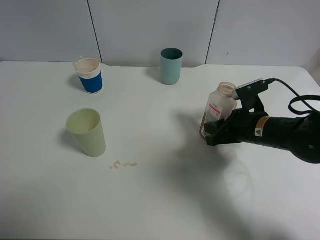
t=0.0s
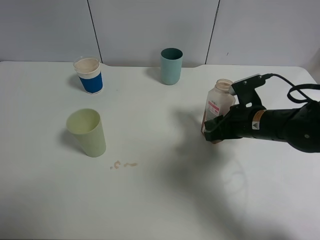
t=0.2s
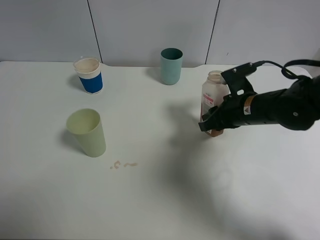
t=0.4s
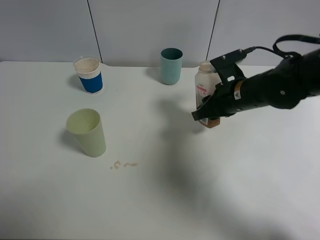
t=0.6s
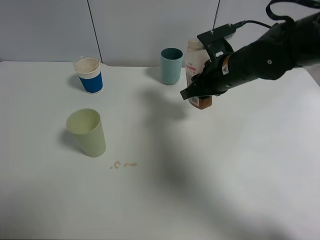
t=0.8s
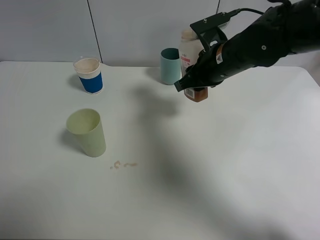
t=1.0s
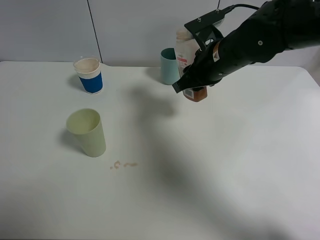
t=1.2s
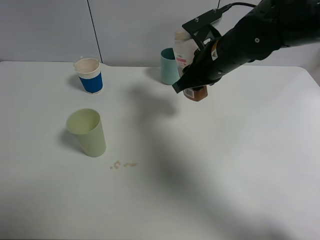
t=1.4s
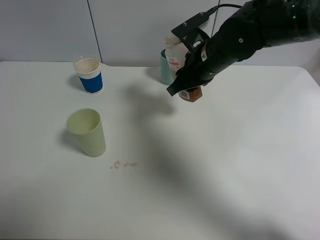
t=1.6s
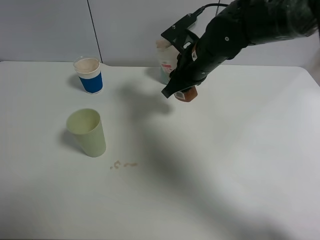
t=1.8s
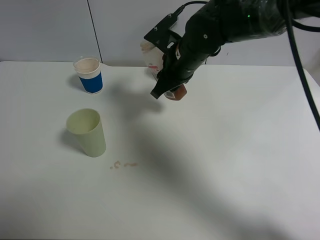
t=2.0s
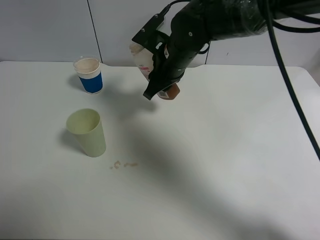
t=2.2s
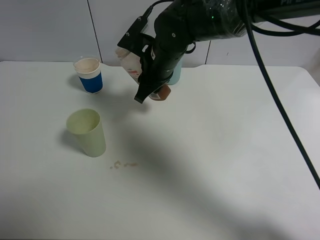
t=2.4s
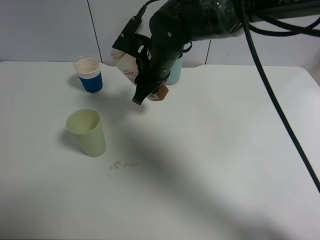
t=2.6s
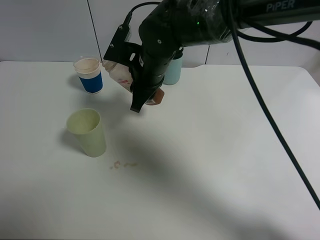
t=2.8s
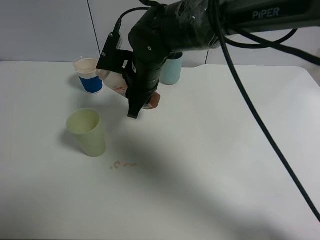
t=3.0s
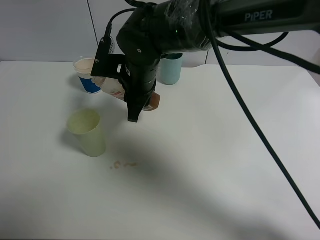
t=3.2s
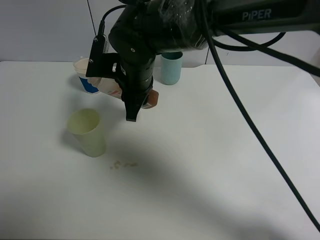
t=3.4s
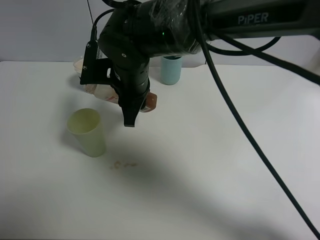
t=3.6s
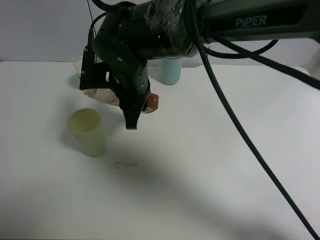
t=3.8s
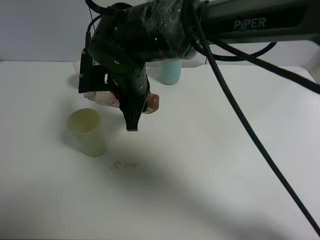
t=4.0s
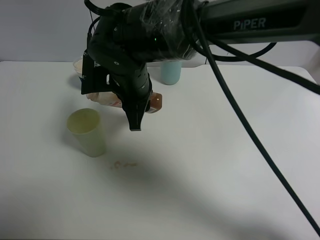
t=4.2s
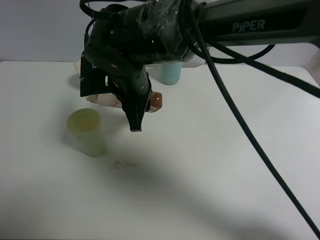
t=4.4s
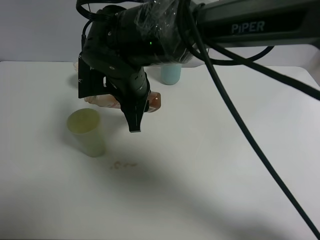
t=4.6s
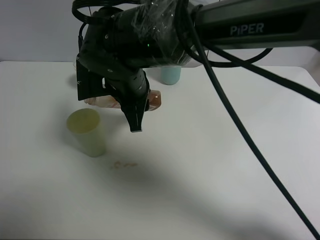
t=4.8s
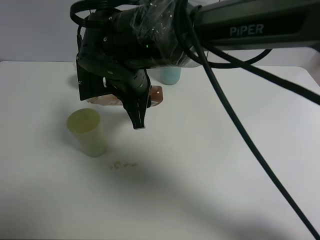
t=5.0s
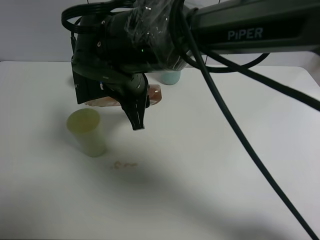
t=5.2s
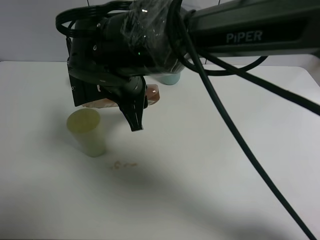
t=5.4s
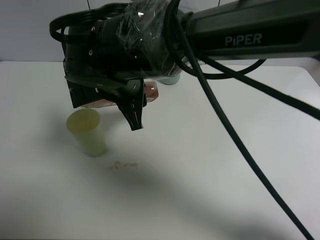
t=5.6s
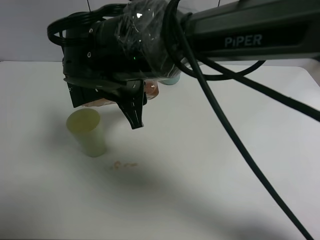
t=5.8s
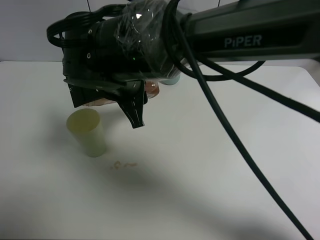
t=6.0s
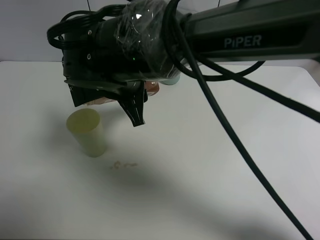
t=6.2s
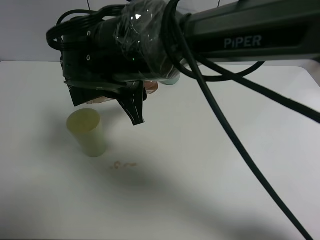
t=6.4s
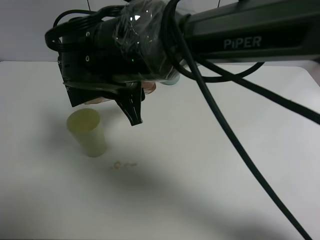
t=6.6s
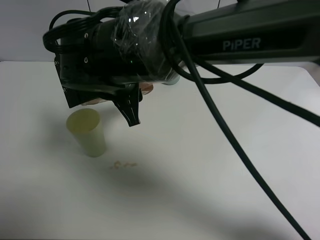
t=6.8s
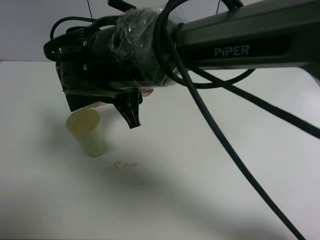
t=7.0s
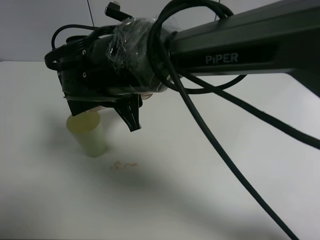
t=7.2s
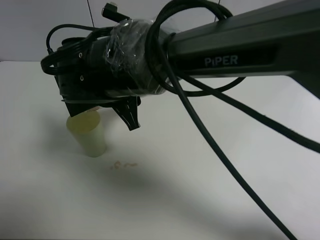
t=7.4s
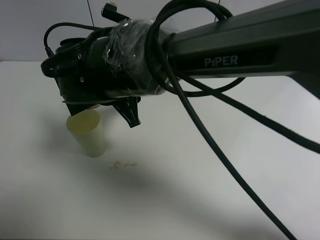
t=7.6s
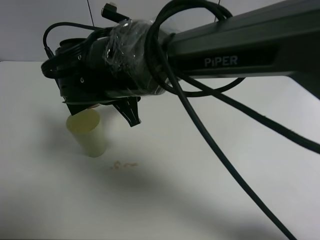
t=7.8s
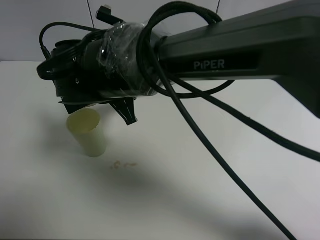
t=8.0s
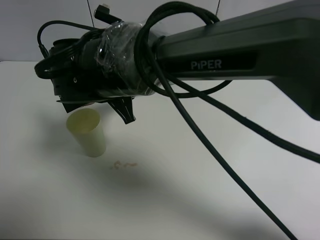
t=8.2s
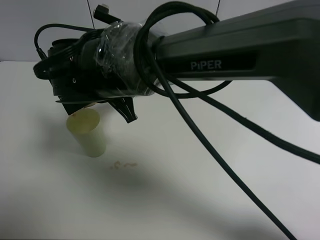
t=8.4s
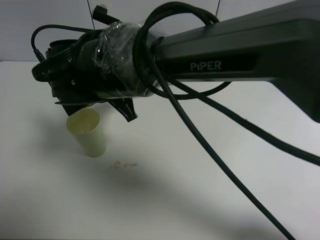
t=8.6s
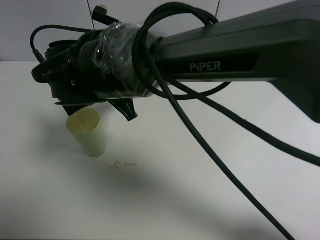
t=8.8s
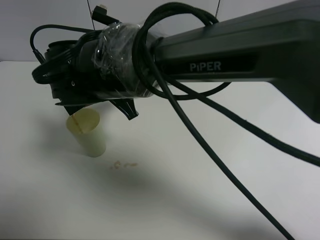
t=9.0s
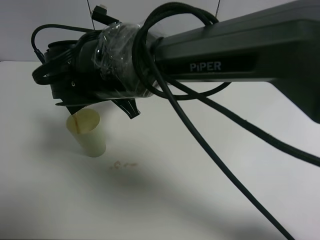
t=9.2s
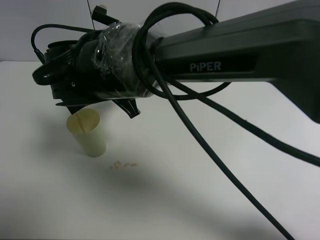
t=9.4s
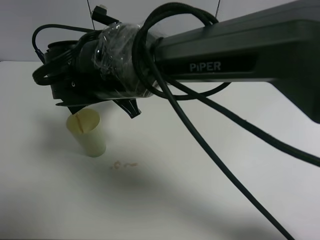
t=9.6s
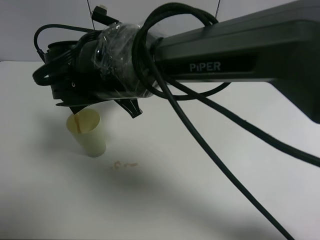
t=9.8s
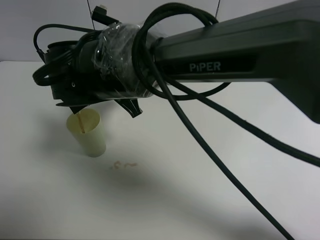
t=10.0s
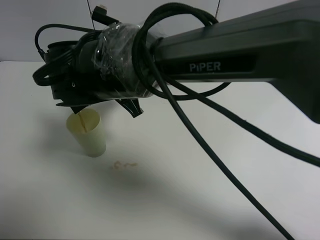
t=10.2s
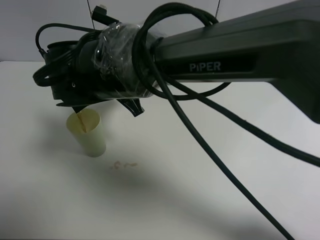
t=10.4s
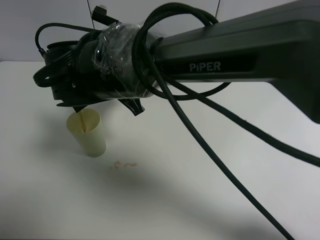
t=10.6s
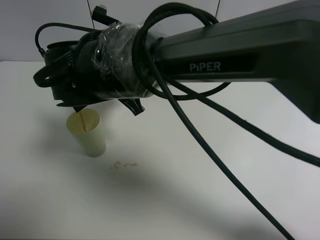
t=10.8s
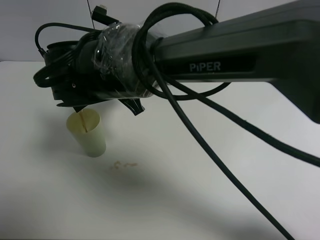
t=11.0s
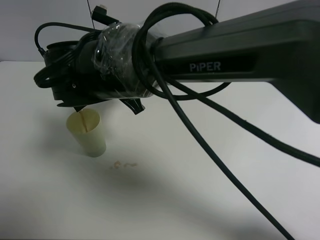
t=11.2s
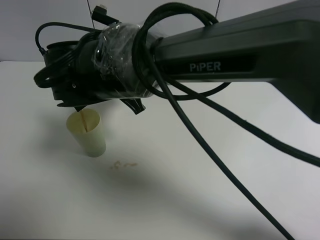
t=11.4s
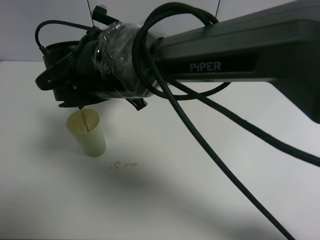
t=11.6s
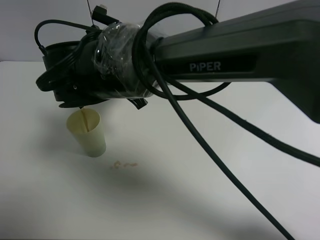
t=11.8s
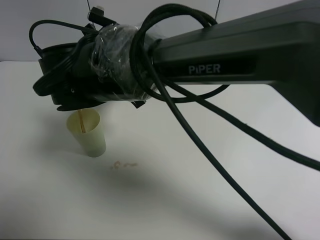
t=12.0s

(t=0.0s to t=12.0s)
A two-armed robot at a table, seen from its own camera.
Task of the whole recording: use a clamp to hold the bottle of the drink, pour the beverage into a random cup, then clamp the cup containing the drink and pour the drink into another random cup.
t=0.0s - t=1.6s: The right gripper heads to the left, upward and forward, covering about 15 cm.
t=1.6s - t=3.0s: The right gripper travels to the left by about 10 cm.
t=3.0s - t=4.4s: The right gripper ends up roughly 5 cm from where it was.
t=7.6s - t=9.0s: The grippers move only a little.
t=9.0s - t=10.4s: Both grippers stay about where they are.
t=10.4s - t=12.0s: There are only small adjustments of the grippers.

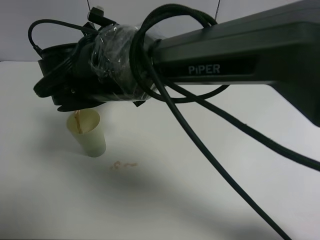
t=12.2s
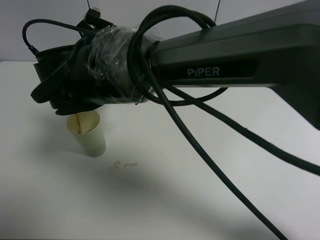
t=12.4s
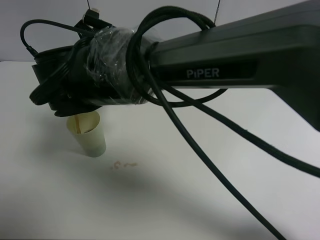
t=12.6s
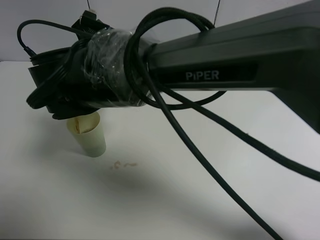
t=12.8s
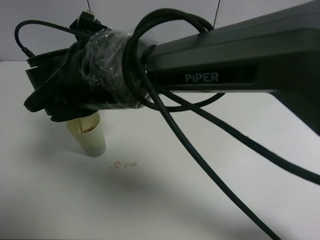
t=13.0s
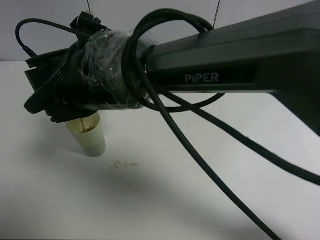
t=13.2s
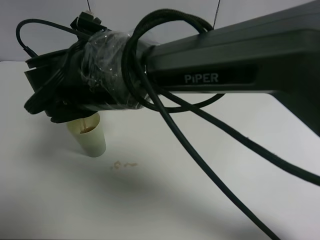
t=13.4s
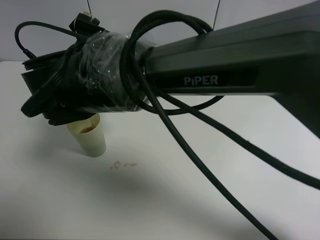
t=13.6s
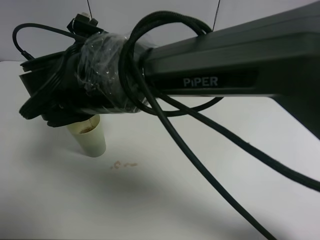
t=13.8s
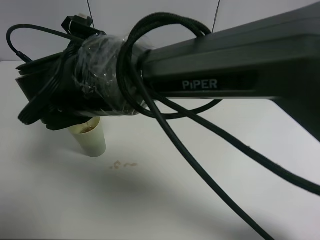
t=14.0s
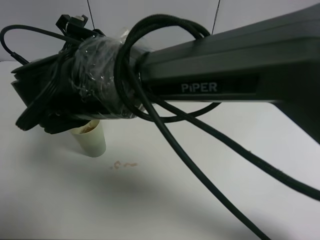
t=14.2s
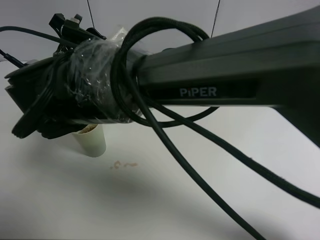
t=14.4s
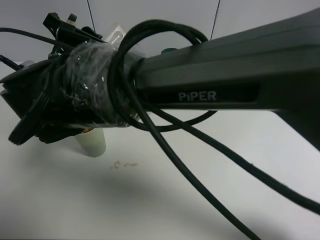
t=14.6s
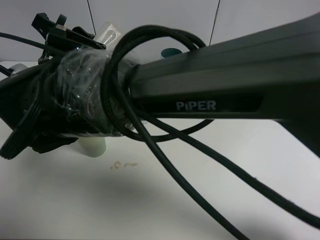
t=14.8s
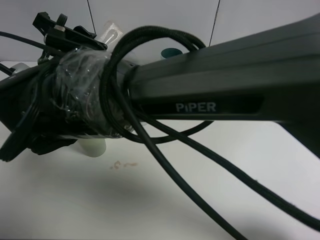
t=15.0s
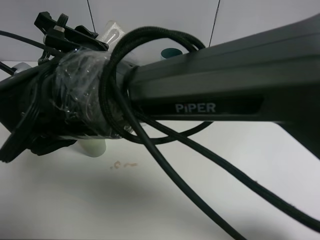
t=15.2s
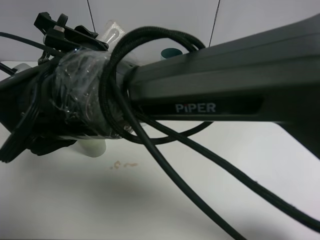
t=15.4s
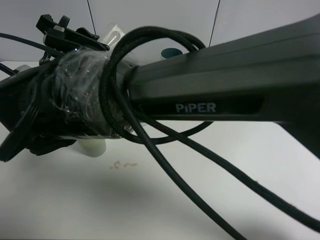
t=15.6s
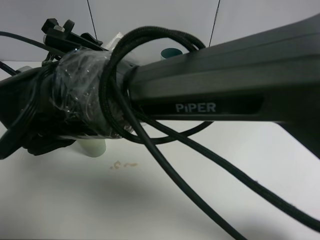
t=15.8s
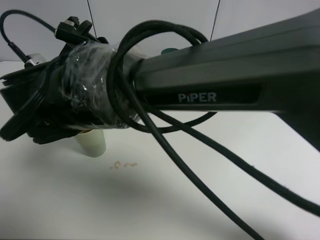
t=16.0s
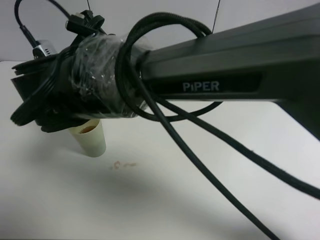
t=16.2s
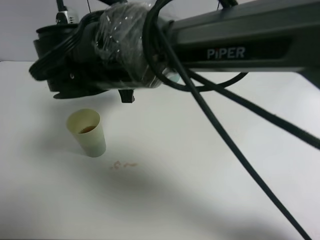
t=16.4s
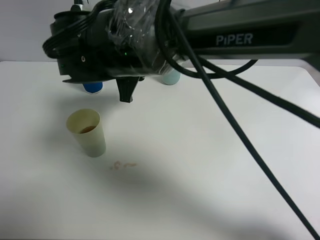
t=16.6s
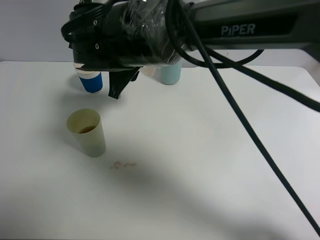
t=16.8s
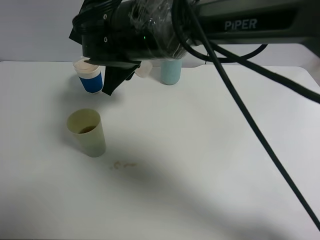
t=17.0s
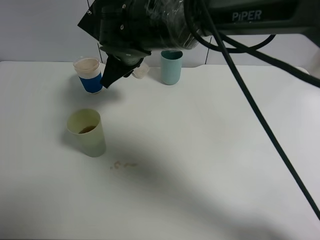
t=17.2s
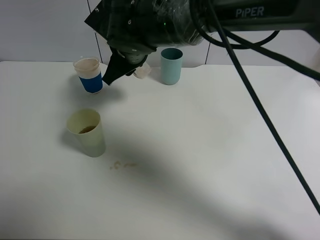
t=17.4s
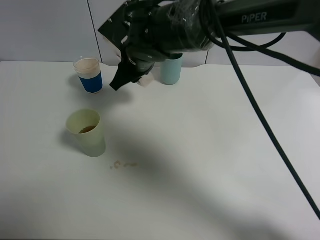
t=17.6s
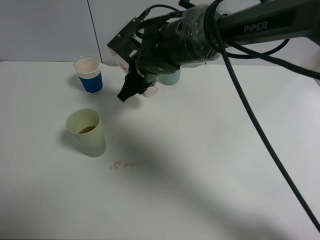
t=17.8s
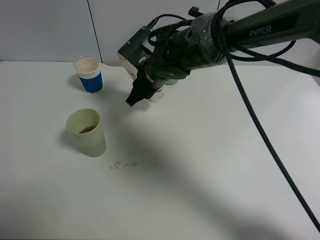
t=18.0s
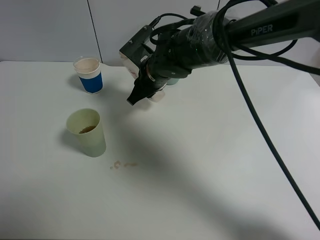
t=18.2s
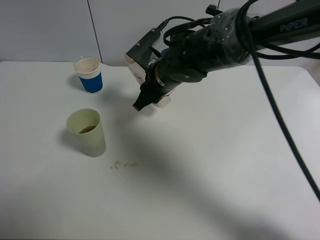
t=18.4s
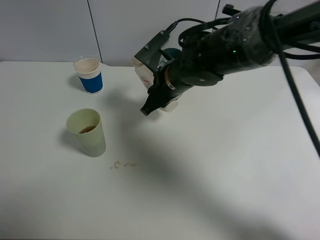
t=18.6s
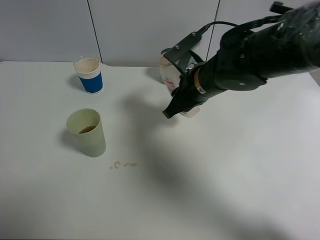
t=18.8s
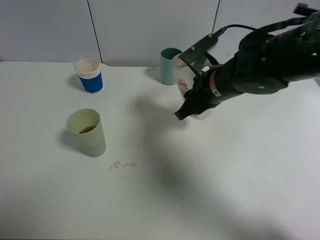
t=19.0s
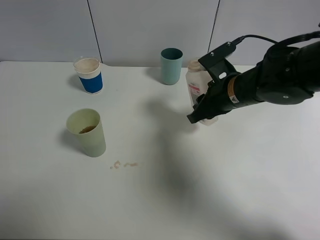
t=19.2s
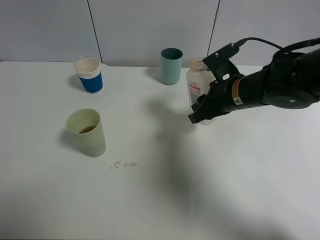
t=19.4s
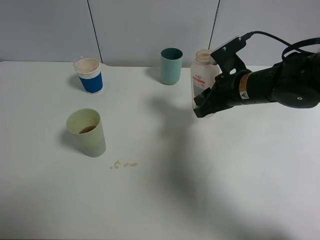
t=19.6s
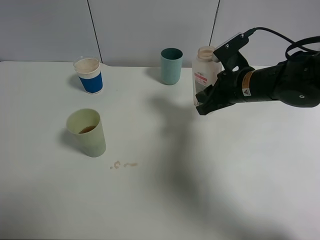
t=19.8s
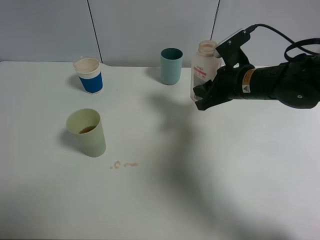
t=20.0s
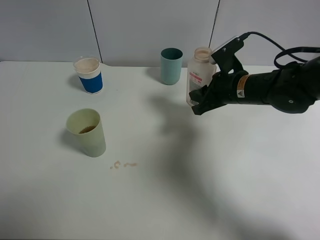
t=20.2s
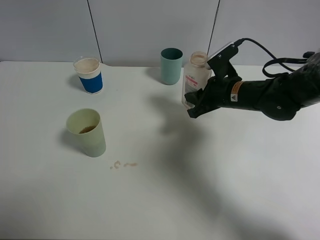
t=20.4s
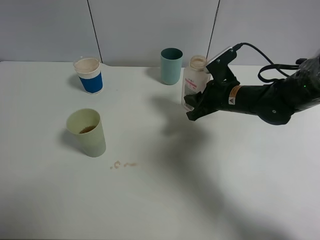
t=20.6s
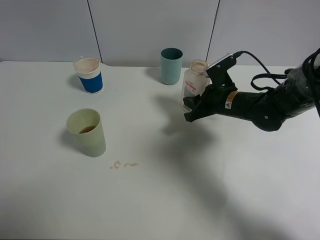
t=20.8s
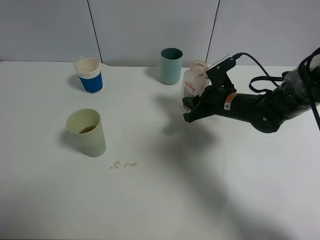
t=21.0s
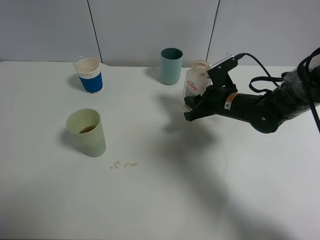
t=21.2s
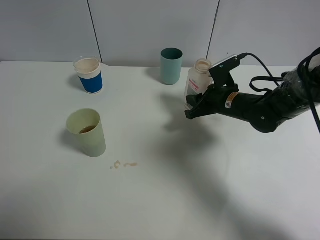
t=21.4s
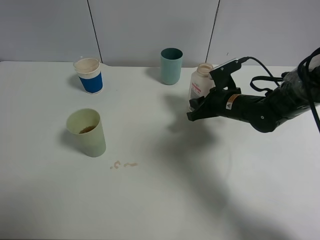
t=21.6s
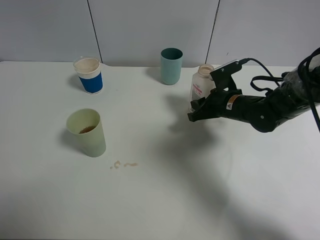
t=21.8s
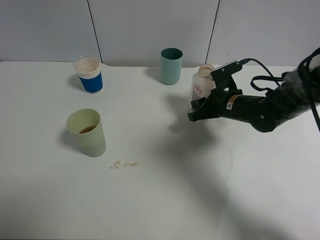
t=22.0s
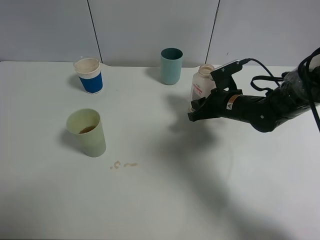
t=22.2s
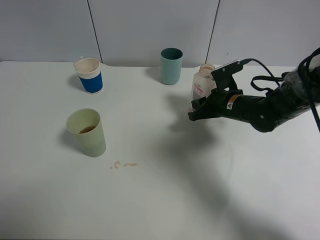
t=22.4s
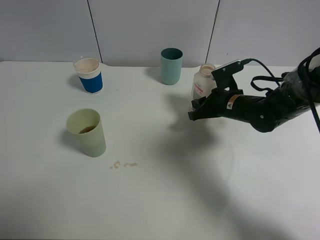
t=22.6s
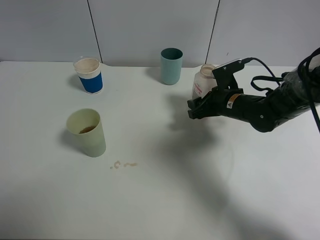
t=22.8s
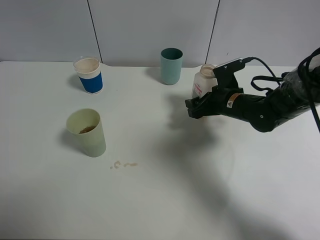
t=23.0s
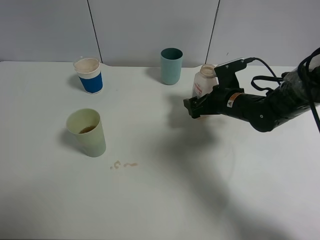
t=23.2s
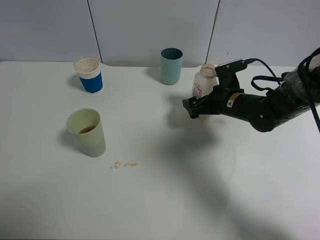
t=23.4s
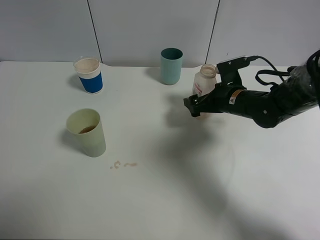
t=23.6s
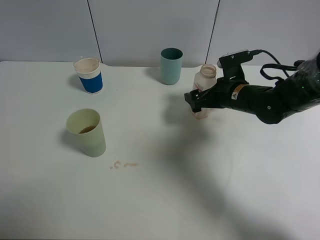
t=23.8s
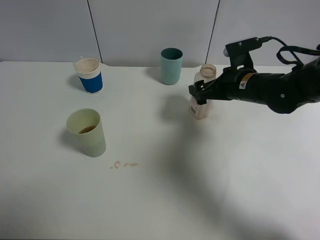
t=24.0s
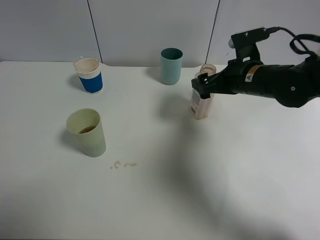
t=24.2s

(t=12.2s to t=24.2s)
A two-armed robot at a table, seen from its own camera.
Task of the whole recording: use a clamp to hold the bottle of the drink, pour the beverage into a random cup, then clamp the cup containing the drink and pour the drink into another random cup.
Step, t=12.2s - t=16.4s: Pour the drink into the green plastic cup with right gripper.
t=15.2s - t=16.6s: The right gripper shifts approximately 5 cm forward.
t=16.6s - t=18.2s: The right gripper travels forward, downward and to the right by roughly 10 cm.
t=18.2s - t=19.8s: The right gripper travels to the right by roughly 15 cm.
t=19.8s - t=21.2s: The right gripper travels downward by approximately 5 cm.
t=21.2s - t=22.6s: There are only small adjustments of the grippers.
t=22.6s - t=24.2s: The right gripper shifts about 10 cm upward, and opens up.
